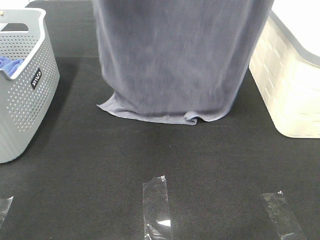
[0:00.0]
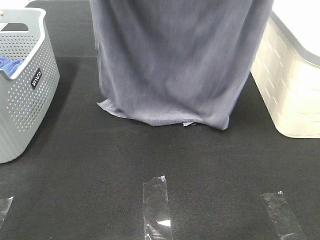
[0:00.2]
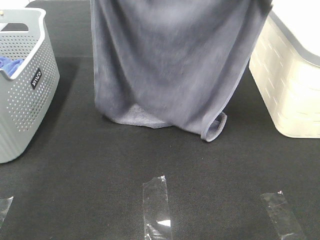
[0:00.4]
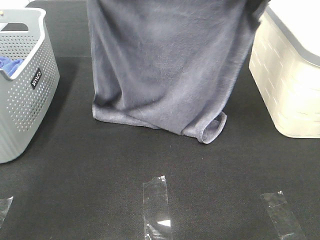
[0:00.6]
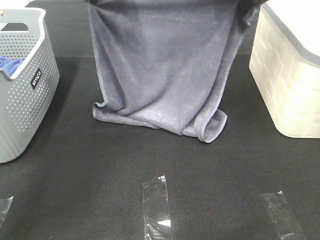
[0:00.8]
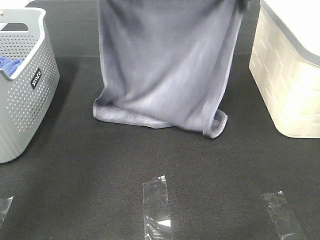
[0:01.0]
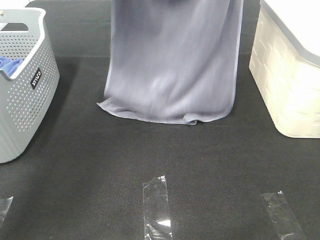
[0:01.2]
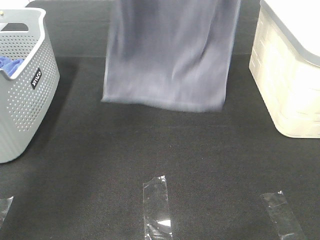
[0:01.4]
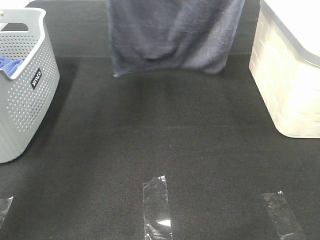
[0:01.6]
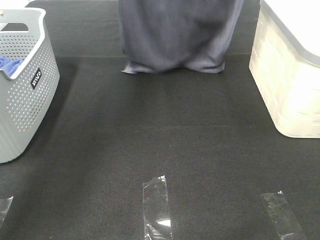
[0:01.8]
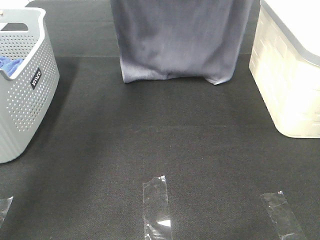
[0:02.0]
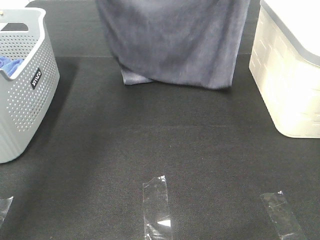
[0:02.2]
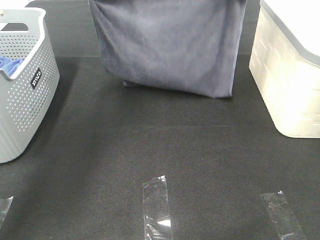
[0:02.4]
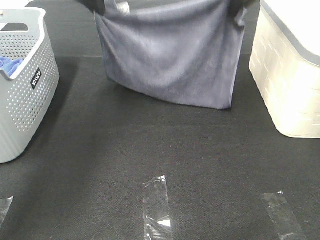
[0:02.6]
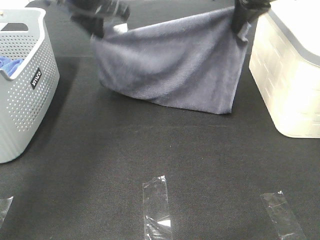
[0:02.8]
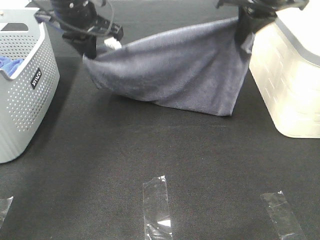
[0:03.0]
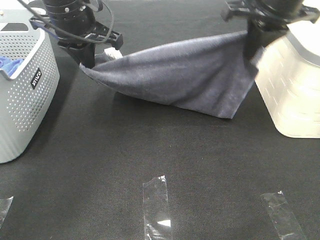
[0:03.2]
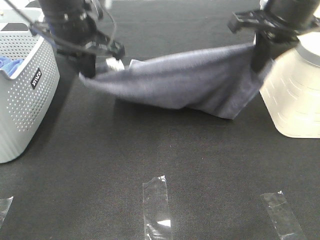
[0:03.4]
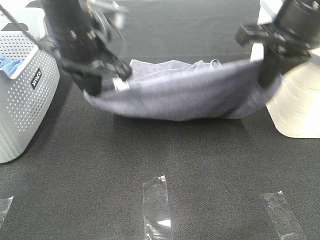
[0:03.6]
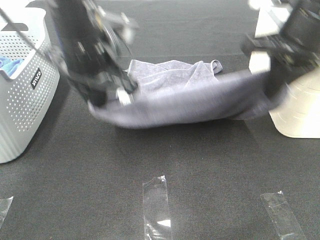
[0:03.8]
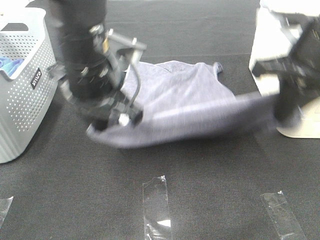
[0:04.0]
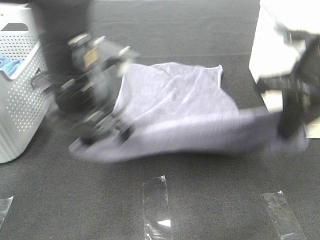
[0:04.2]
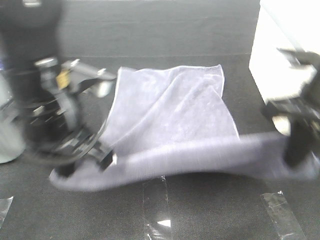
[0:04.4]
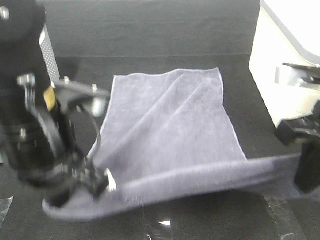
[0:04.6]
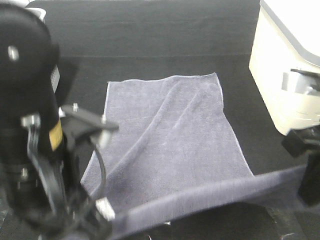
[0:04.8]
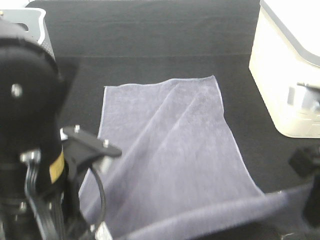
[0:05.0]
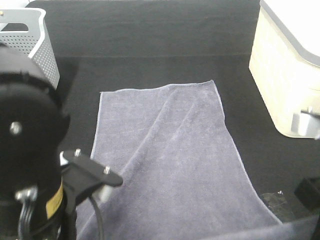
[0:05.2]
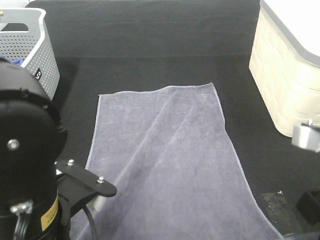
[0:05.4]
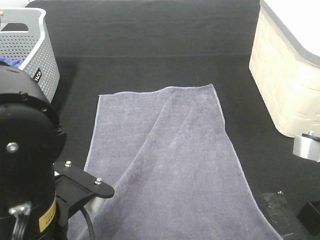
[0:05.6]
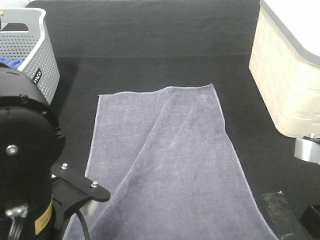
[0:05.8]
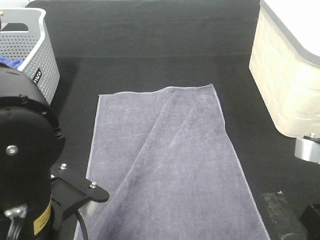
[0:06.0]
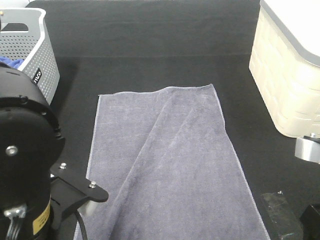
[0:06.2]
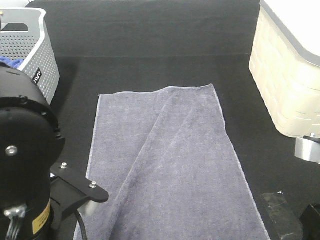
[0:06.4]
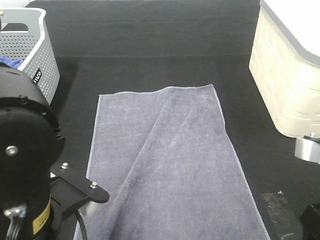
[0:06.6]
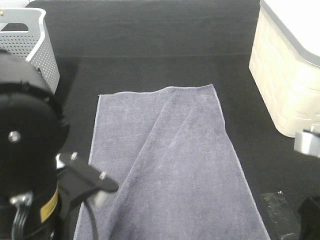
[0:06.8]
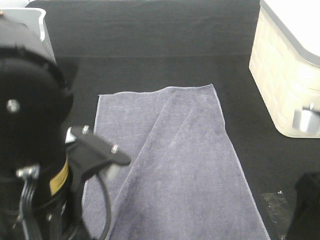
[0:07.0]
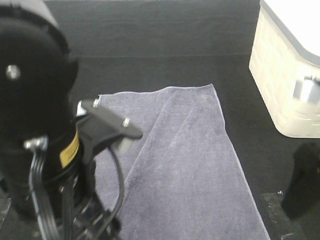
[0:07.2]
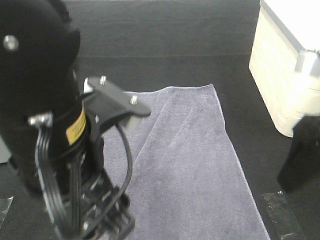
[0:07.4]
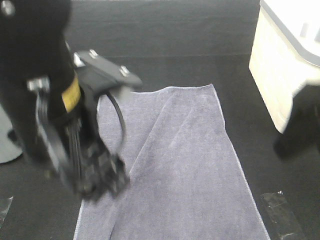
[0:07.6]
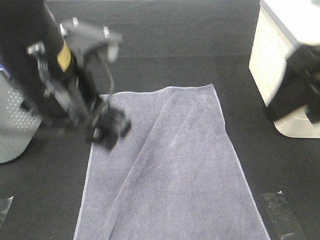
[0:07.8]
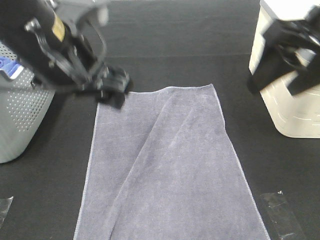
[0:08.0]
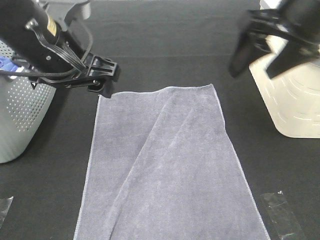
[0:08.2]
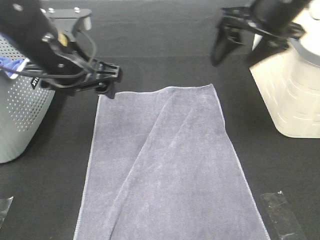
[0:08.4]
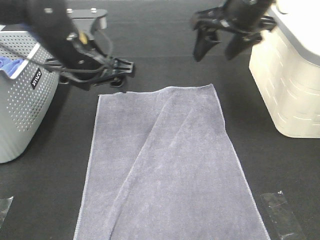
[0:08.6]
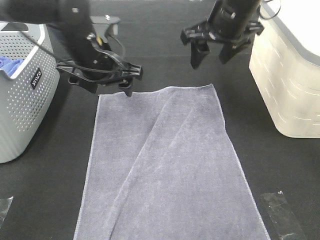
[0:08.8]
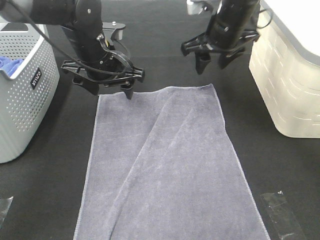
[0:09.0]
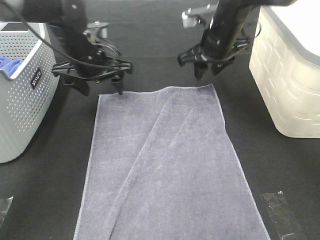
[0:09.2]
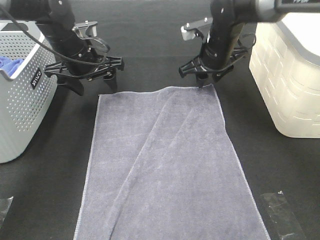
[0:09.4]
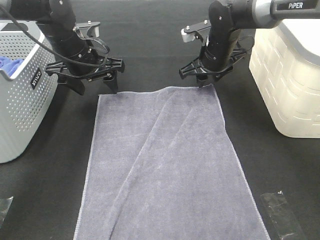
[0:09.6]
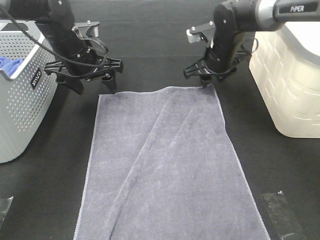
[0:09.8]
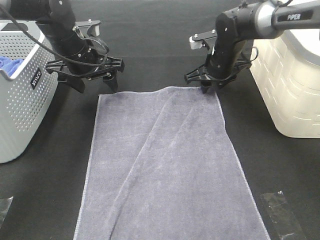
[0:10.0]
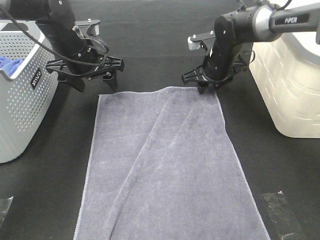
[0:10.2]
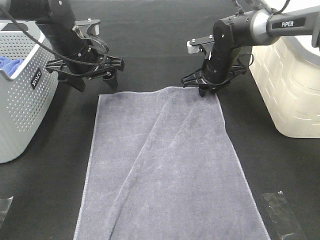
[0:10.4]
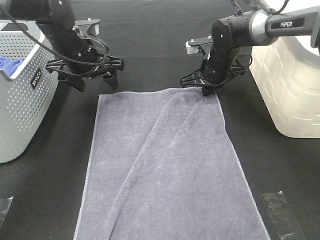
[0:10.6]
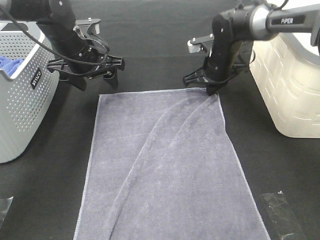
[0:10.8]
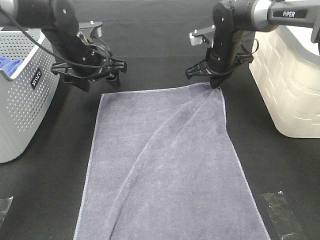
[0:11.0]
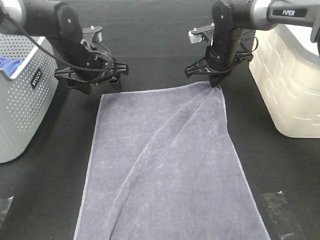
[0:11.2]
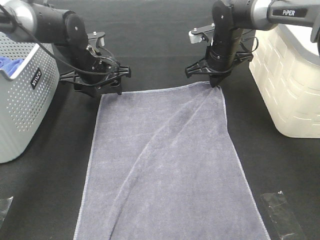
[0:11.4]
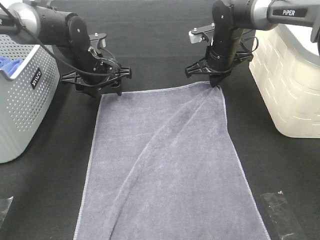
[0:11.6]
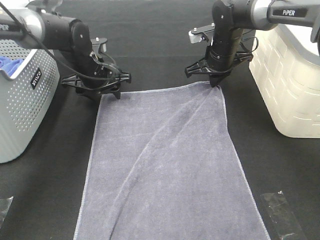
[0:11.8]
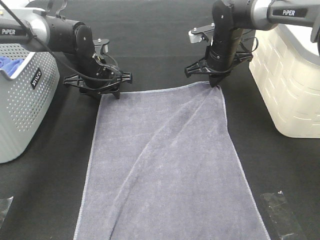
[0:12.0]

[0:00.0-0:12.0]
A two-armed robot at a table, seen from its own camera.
Task of the whole recording: Remove the towel and place it.
Step, 0:02.0 to 0:08.4: Left hand:adjust the gray towel.
Step, 0:02.0 to 0:08.4: Right hand:adjust the gray towel.
0:00.0 to 0:01.6: Both grippers travel together forward, approximately 10 cm. The left gripper moves about 15 cm downward and comes back. The right gripper goes downward and returns, about 15 cm each way.
0:01.6 to 0:03.0: Both grippers move downward, about 20 cm.
0:03.0 to 0:04.4: The two grippers go some 20 cm backward.
0:04.4 to 0:06.0: The two grippers go approximately 10 cm backward. The right gripper opens, while the left gripper opens its fingers.
0:06.0 to 0:07.6: The right gripper moves upward and forward, roughly 10 cm; the left gripper is displaced forward and upward by about 10 cm.
0:07.6 to 0:09.0: Both grippers move forward, approximately 25 cm.
0:09.0 to 0:10.4: The right gripper heads downward, covering about 10 cm.
0:10.4 to 0:12.0: The right gripper closes, while the left gripper shifts some 5 cm downward.

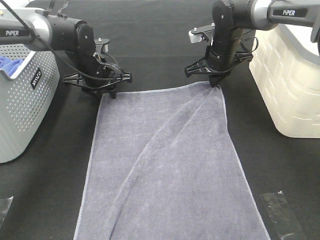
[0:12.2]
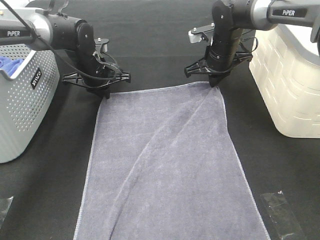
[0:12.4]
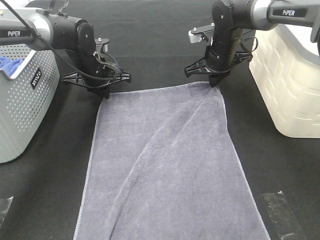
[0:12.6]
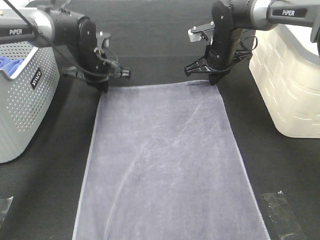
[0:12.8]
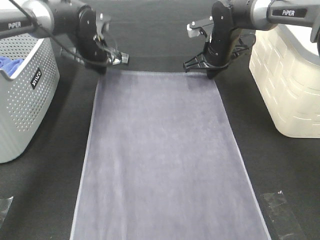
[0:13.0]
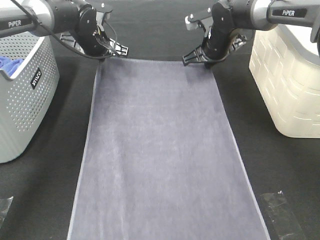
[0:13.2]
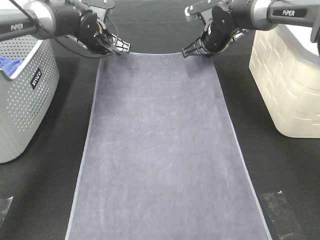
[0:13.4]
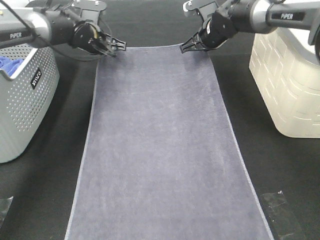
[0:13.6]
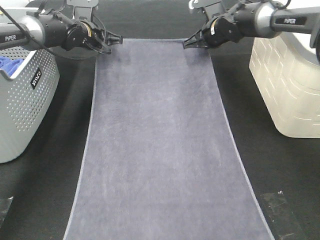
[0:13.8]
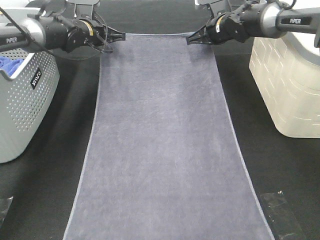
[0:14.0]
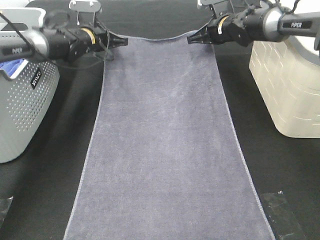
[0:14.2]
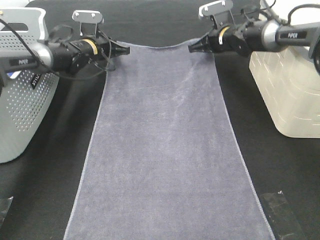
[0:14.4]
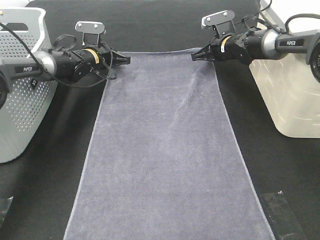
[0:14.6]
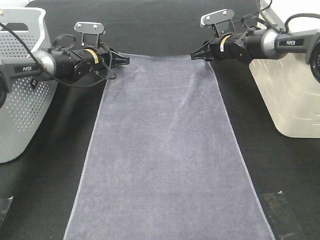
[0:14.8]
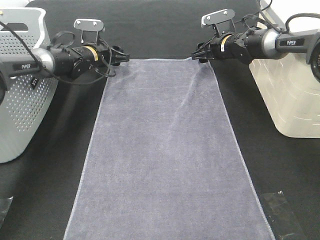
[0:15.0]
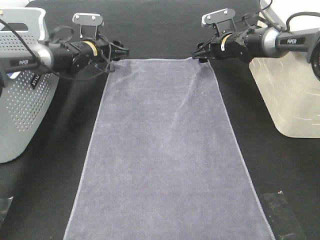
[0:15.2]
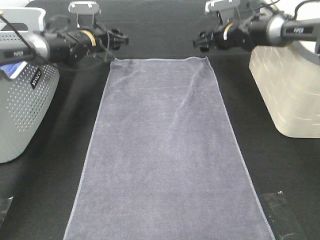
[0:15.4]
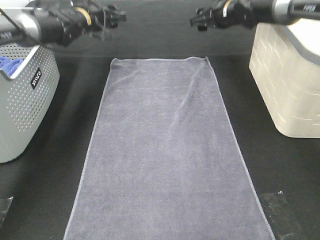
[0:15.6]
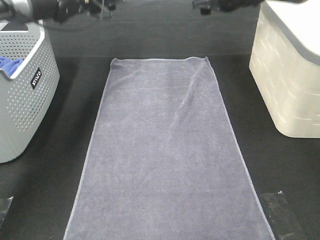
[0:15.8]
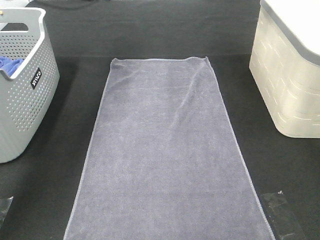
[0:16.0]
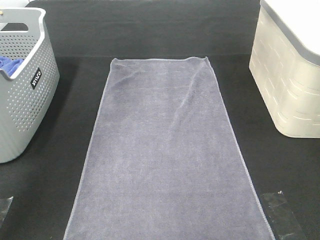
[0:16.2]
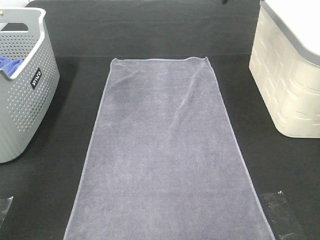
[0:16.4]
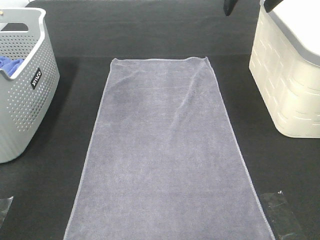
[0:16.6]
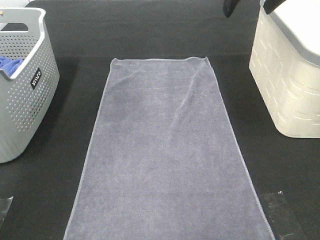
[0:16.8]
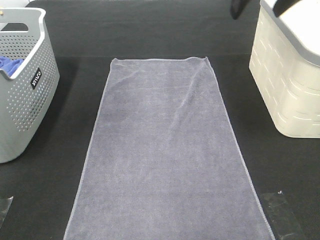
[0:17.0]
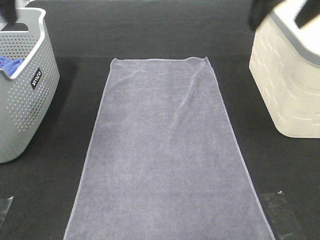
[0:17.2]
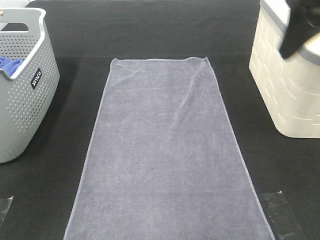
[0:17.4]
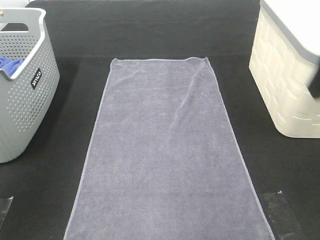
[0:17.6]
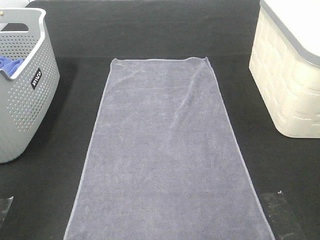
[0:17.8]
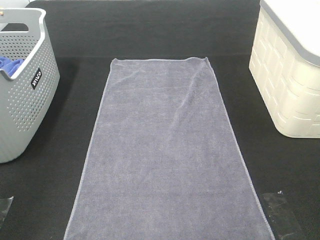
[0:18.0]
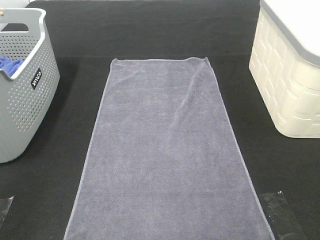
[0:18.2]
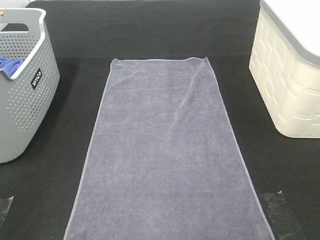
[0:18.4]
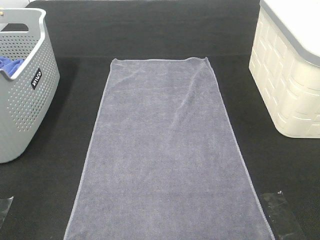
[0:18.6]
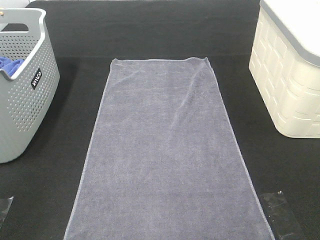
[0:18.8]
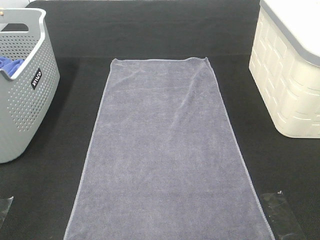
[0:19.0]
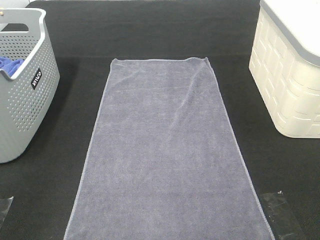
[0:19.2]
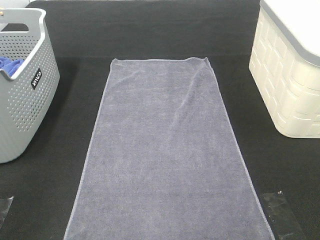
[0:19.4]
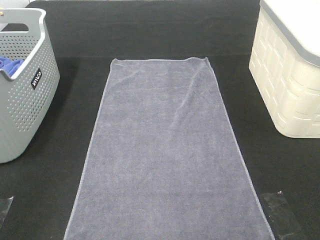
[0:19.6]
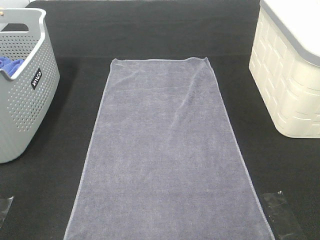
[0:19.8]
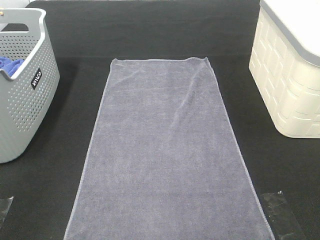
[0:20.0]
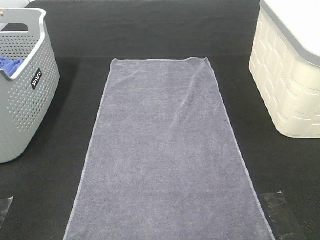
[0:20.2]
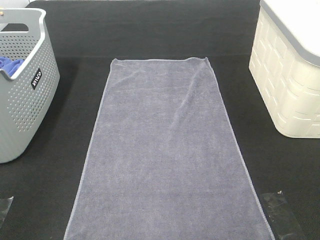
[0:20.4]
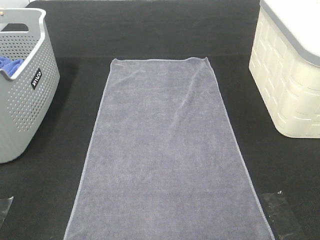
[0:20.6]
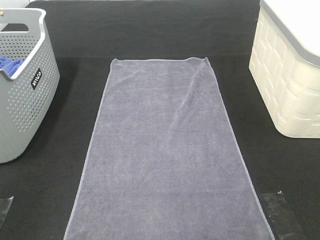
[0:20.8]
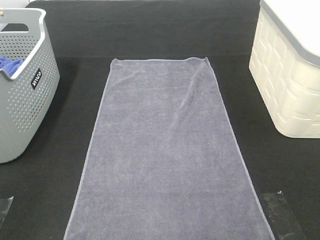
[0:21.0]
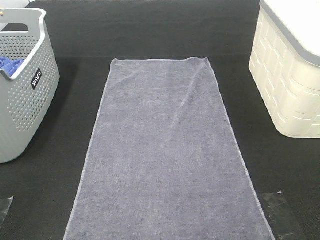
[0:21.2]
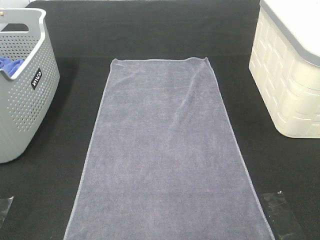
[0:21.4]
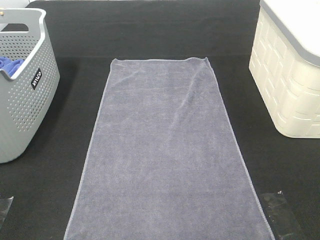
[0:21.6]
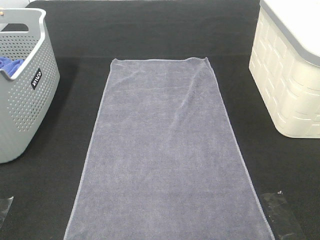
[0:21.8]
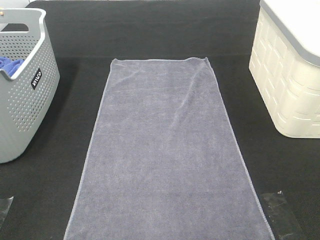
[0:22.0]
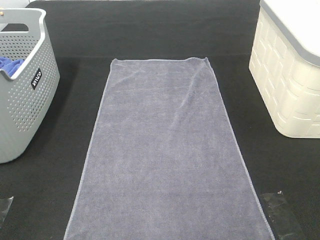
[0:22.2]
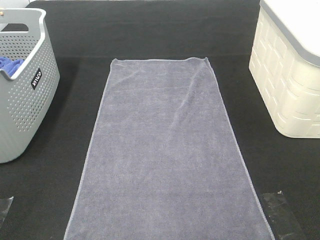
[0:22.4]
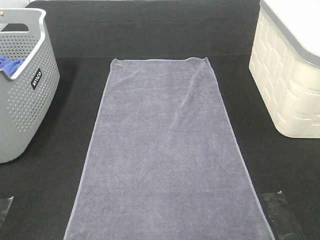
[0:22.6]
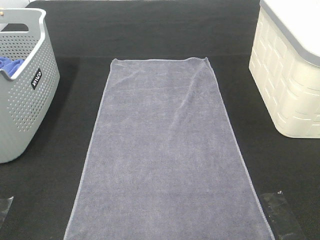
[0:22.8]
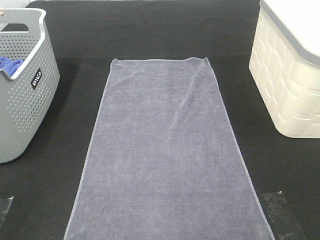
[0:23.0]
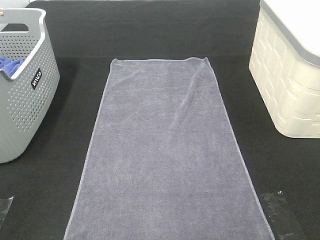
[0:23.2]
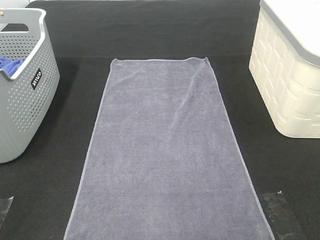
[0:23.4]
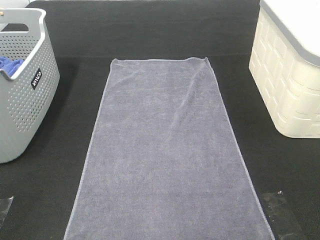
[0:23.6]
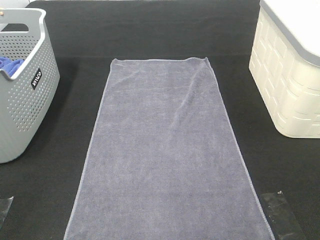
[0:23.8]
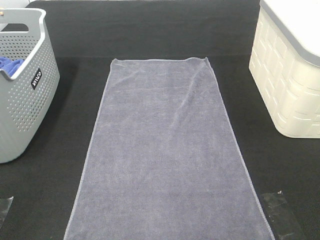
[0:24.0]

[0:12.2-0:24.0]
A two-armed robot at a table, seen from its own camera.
Task of the whole recording: Remove the towel and place it.
0:12.2 to 0:13.6: The left gripper travels forward by approximately 5 cm, and closes up.
0:13.6 to 0:15.2: The right gripper moves roughly 5 cm, and opens, while the left gripper opens up.
0:15.2 to 0:16.6: The grippers both shift upward and backward by approximately 30 cm.
0:16.6 to 0:18.2: Both grippers travel together backward, approximately 35 cm.
0:22.6 to 0:24.0: The two grippers keep their place.
